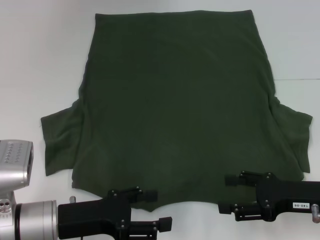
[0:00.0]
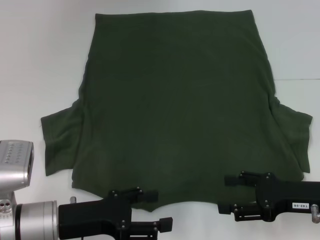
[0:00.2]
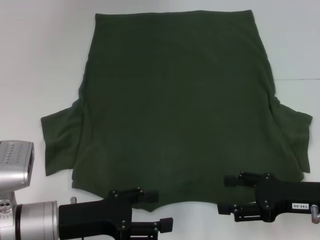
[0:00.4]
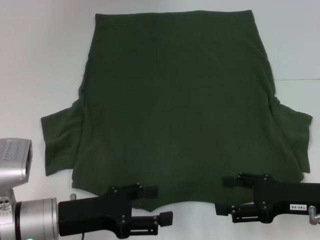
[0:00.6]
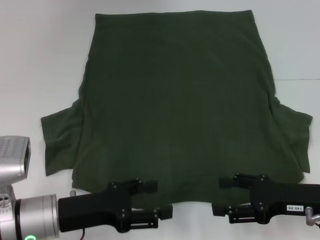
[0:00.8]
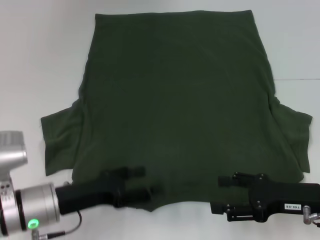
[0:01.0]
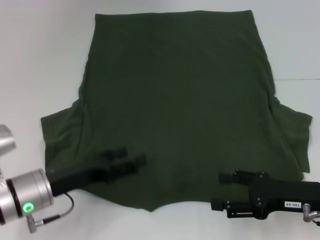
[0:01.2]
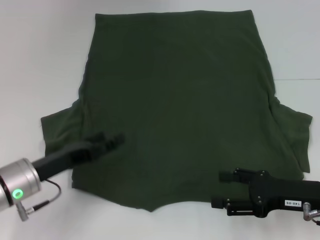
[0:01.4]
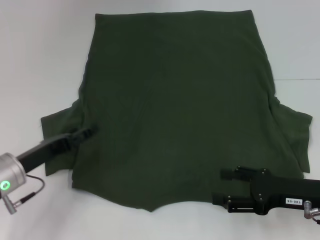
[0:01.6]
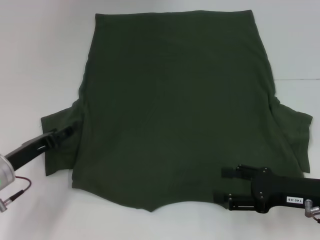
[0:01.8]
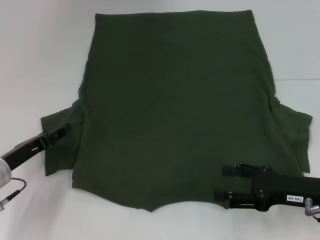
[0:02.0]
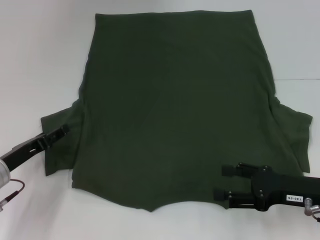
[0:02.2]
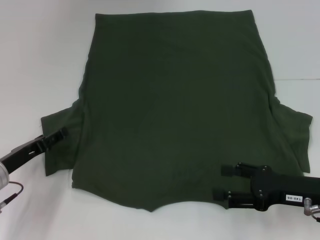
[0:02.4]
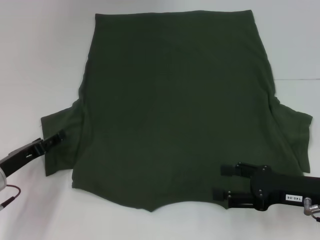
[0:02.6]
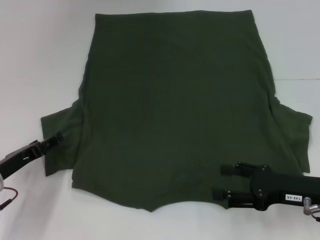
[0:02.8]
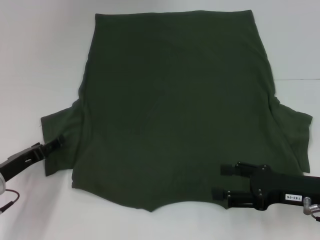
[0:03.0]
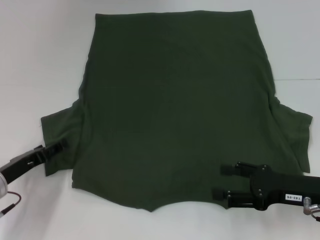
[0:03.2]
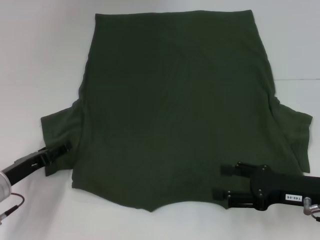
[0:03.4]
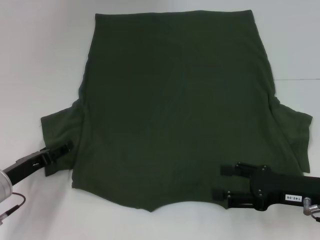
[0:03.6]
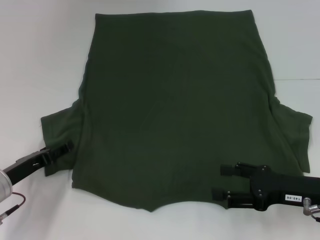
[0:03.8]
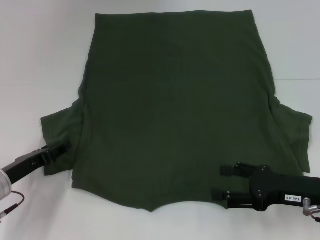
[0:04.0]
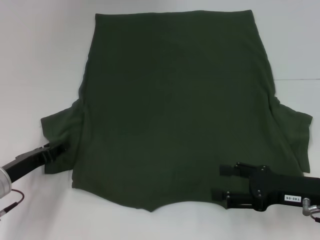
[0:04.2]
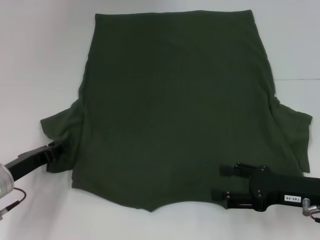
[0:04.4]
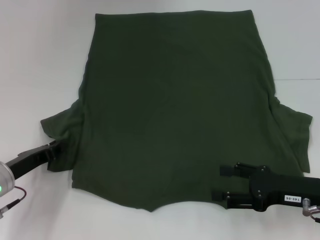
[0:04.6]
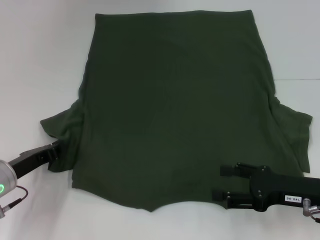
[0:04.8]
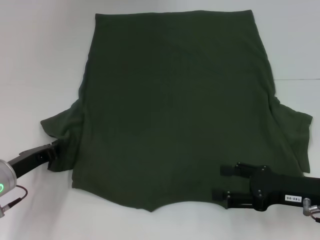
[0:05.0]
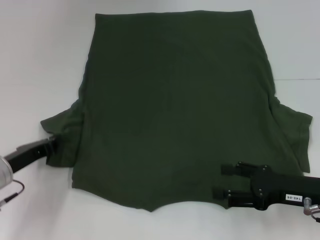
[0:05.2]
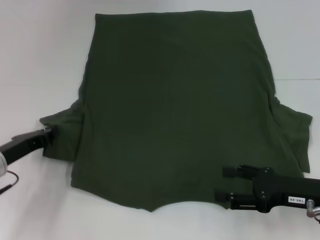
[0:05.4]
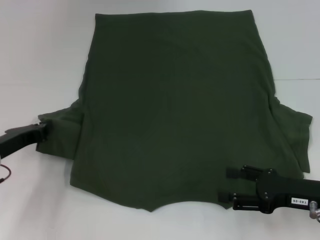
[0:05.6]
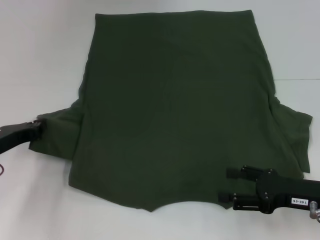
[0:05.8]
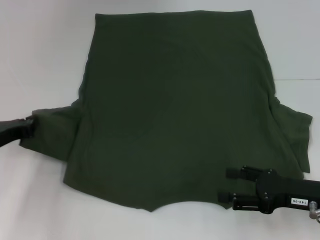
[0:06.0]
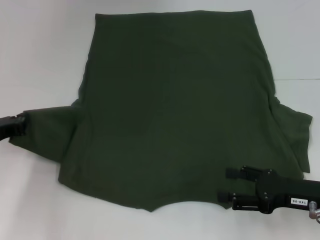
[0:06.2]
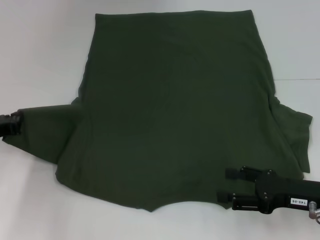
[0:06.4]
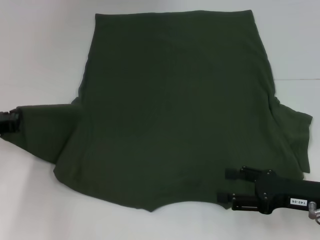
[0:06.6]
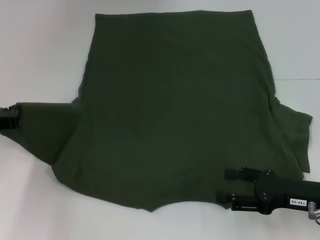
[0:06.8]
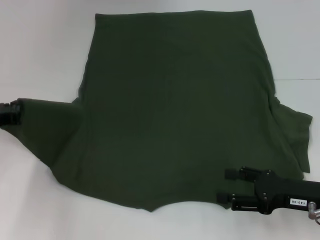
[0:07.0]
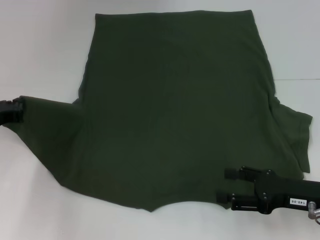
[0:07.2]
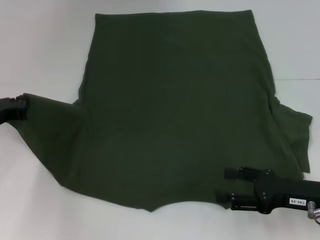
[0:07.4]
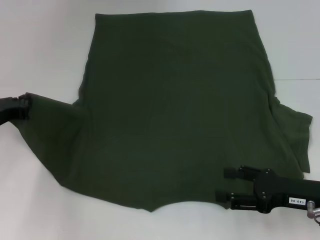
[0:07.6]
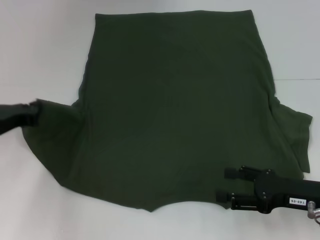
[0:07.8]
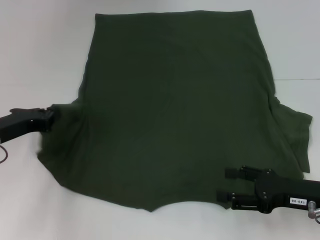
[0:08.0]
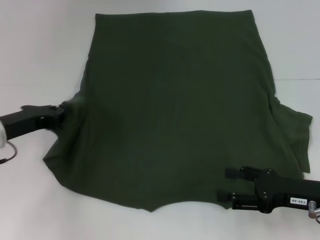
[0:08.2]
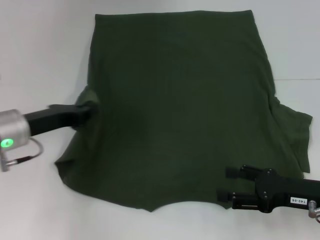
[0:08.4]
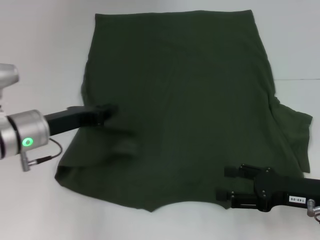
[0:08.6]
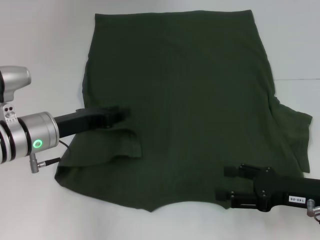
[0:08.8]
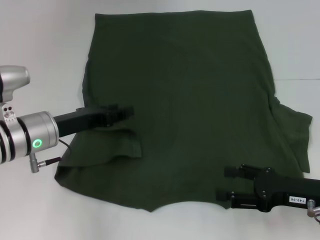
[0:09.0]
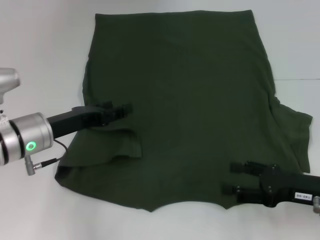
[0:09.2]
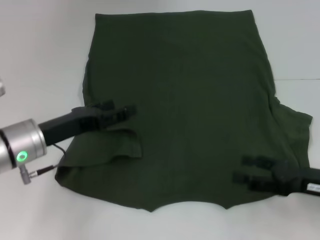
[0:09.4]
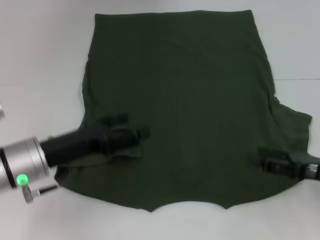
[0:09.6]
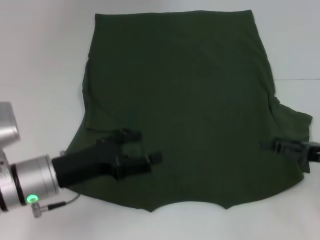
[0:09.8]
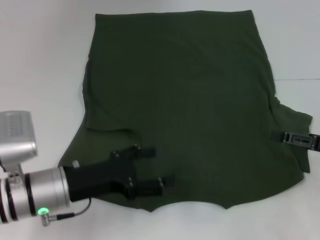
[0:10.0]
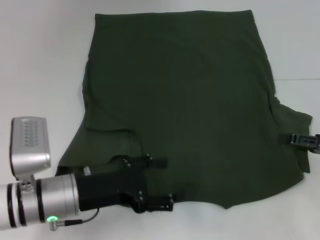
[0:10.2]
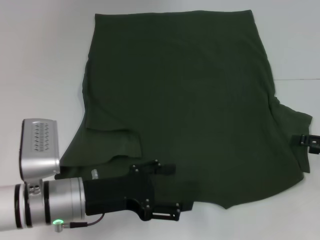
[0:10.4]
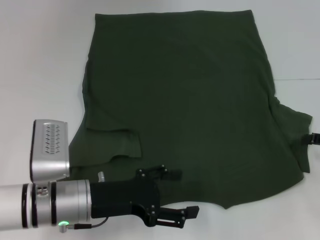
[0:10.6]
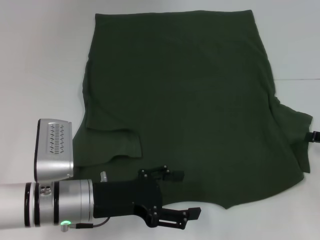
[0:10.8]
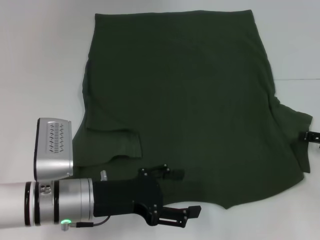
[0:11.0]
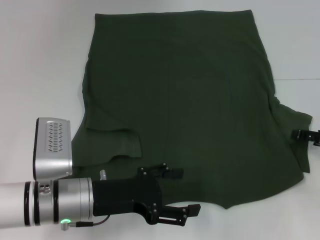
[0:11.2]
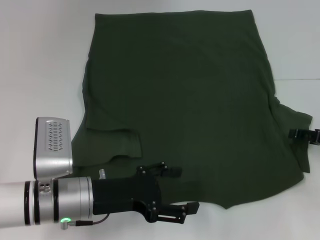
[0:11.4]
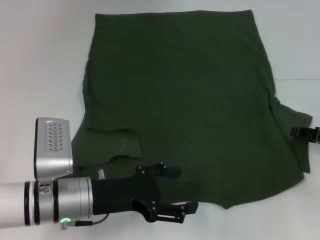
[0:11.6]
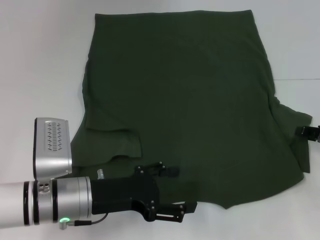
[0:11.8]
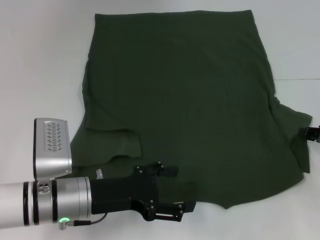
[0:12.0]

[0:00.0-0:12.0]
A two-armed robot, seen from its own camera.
Step, 0:00.0 to 0:09.0: Fold the bottom left sleeve with your left hand.
0:00.0 to 0:01.6: The left gripper is displaced to the left and forward by roughly 10 cm.
0:01.6 to 0:03.0: The grippers make only small movements.
0:03.0 to 0:04.4: The left gripper closes up.
0:04.4 to 0:06.0: The left gripper changes place by about 5 cm, and closes.
0:06.0 to 0:07.6: The grippers make only small movements.
0:07.6 to 0:09.0: The left gripper moves to the right, approximately 10 cm, and opens.
0:09.0 to 0:10.4: The left gripper goes about 10 cm backward, and opens its fingers; the right gripper goes some 10 cm to the right.
0:10.4 to 0:12.0: The right gripper closes.

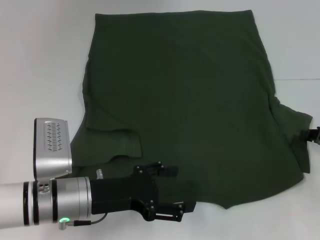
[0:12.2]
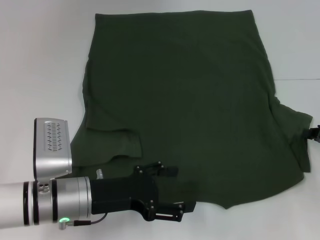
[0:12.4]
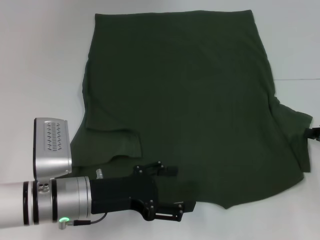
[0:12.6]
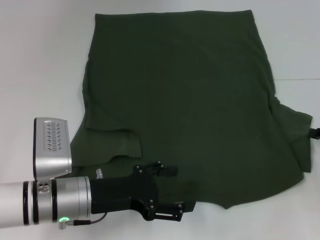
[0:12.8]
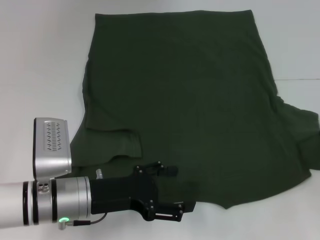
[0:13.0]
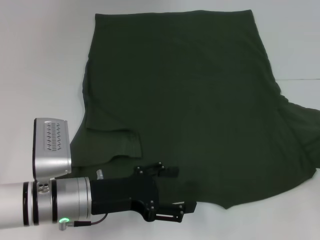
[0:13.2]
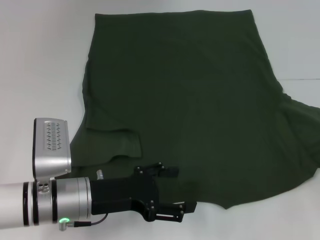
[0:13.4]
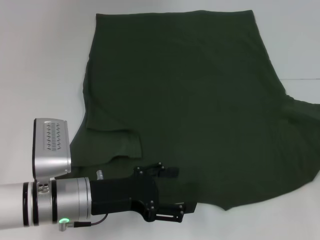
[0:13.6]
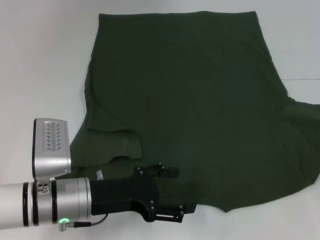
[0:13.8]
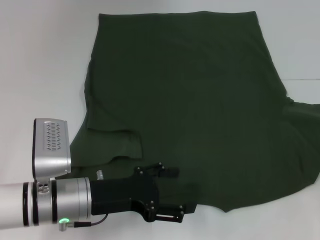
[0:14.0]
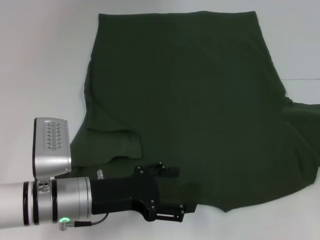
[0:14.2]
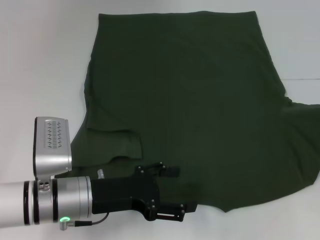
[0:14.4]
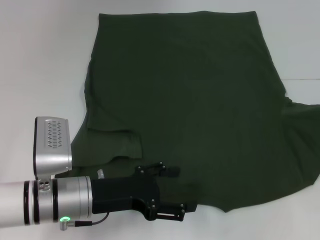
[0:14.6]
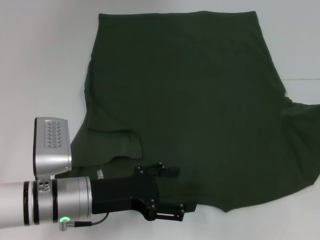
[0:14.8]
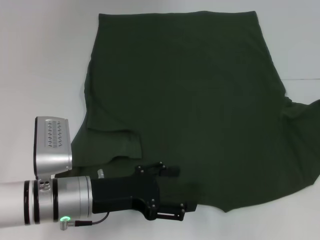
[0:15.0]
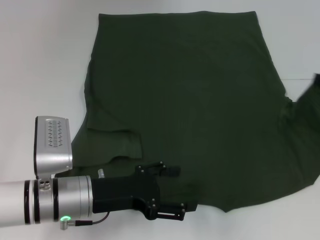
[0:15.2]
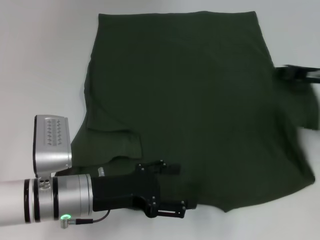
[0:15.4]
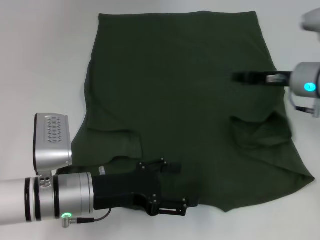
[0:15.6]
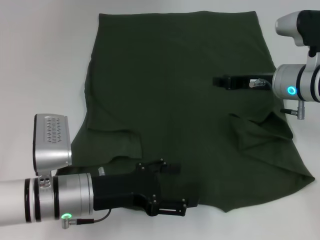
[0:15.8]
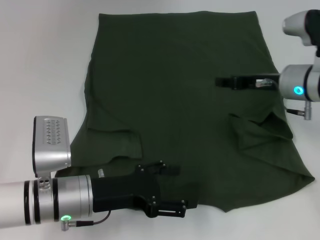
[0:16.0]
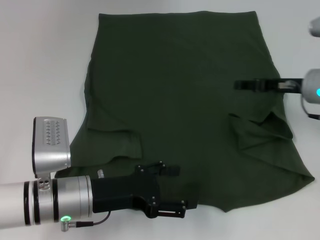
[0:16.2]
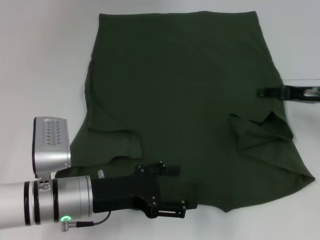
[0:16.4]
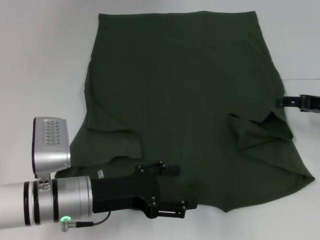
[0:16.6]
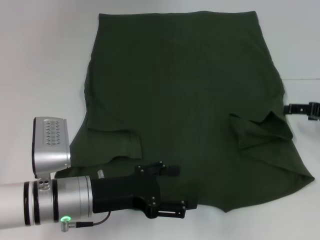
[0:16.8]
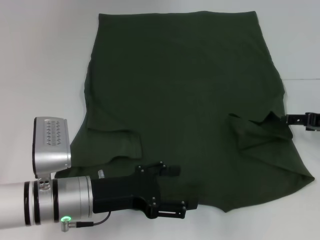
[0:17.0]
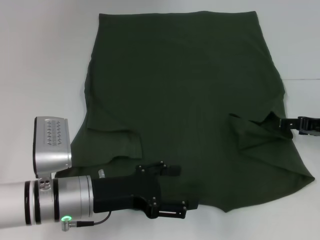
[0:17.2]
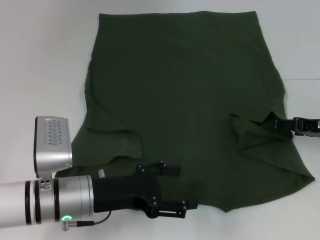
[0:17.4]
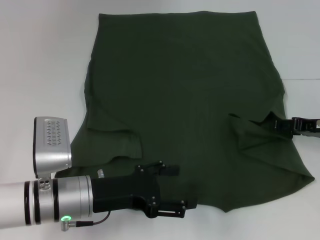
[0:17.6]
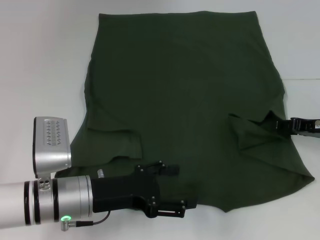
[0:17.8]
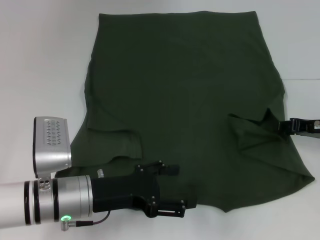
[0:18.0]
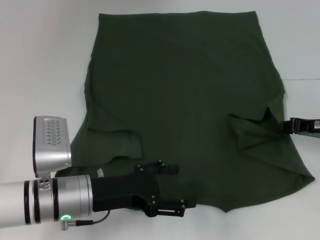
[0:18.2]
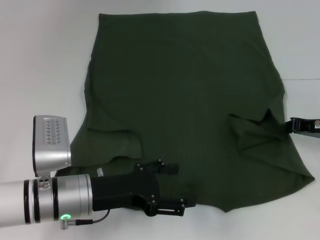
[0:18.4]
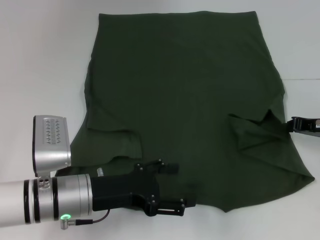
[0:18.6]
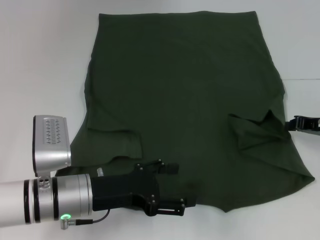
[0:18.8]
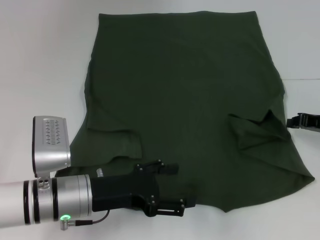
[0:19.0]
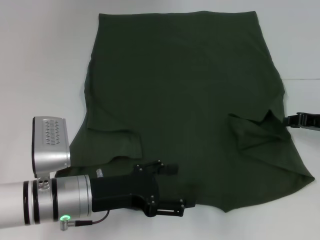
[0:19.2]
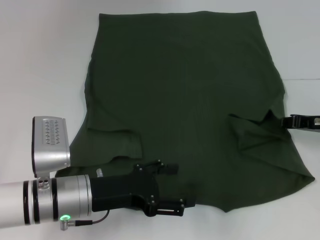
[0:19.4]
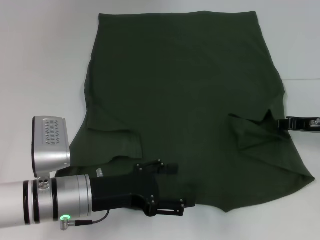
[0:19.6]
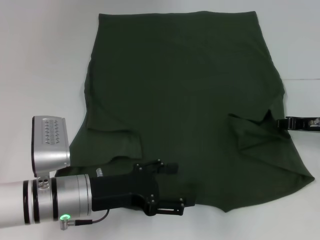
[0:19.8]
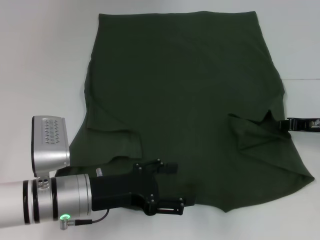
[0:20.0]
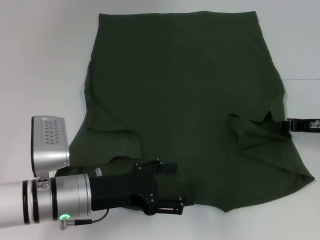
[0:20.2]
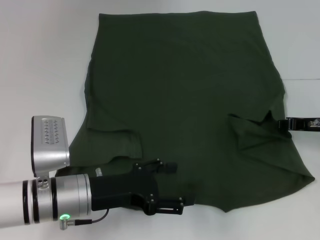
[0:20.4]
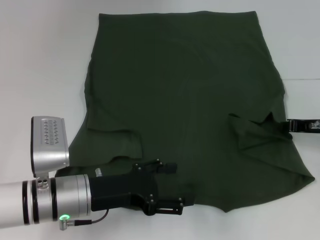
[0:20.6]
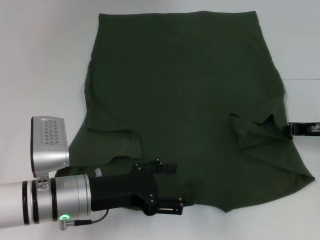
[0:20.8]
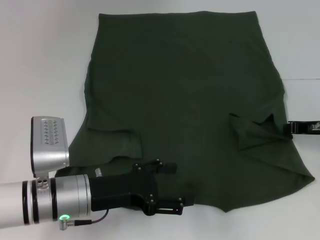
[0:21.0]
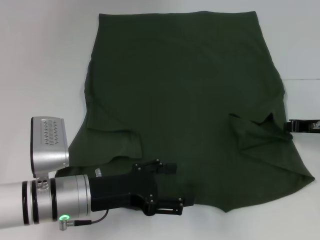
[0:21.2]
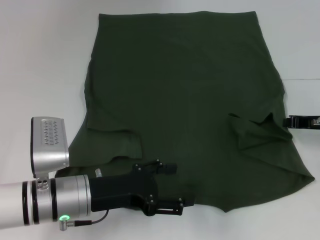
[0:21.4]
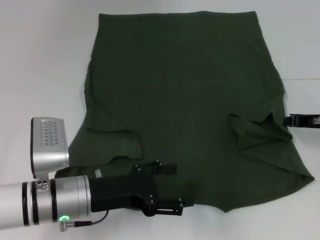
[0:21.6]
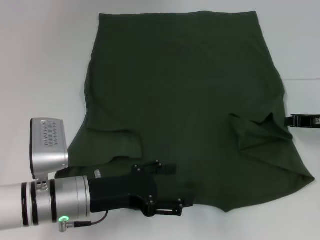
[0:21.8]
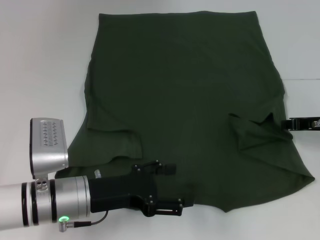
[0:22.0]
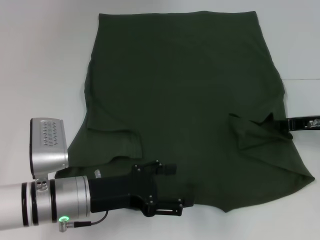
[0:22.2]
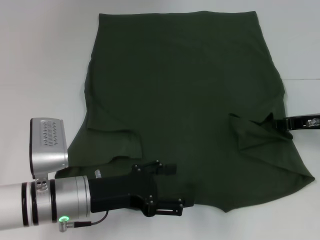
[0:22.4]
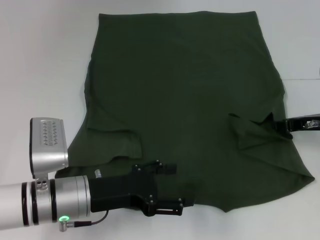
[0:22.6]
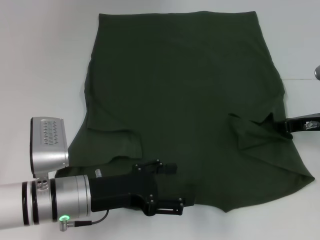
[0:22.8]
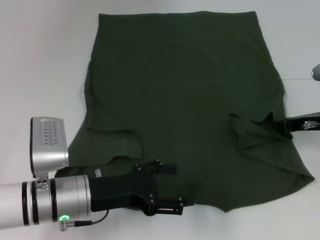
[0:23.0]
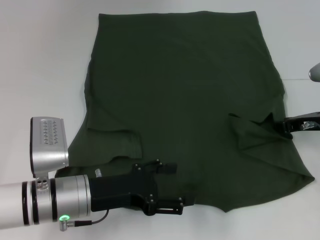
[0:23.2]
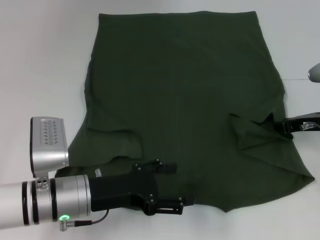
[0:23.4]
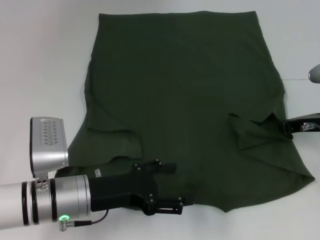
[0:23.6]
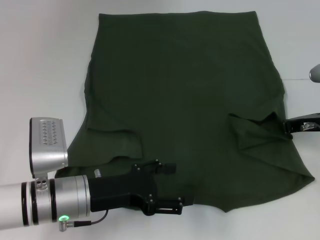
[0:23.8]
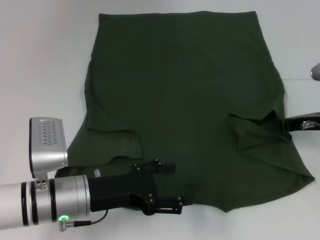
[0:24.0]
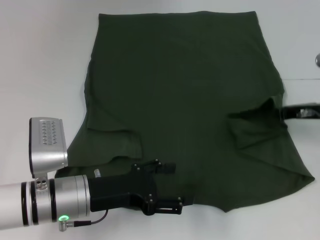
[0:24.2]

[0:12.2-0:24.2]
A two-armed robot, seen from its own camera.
Step, 0:12.2 to 0:16.4: Fold the bottom right sleeve with your right hand.
0:12.2 to 0:13.8: The right gripper is displaced to the right by approximately 5 cm.
0:13.8 to 0:15.2: The right gripper travels forward, to the left and upward by roughly 10 cm.
0:15.2 to 0:16.6: The right gripper travels to the left and back again, about 15 cm each way, and opens.
0:16.6 to 0:18.2: The right gripper closes.
0:18.2 to 0:19.8: The grippers make only small movements.
0:19.8 to 0:21.2: Both grippers stay about where they are.
0:21.2 to 0:22.6: The right gripper opens its fingers.
0:22.6 to 0:24.2: The right gripper closes up.
